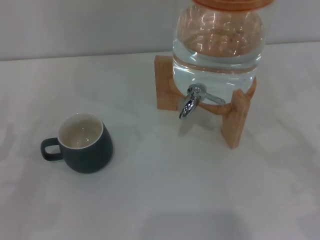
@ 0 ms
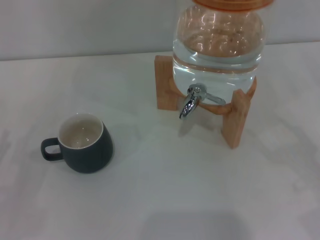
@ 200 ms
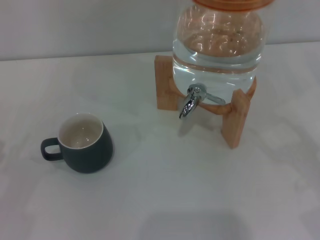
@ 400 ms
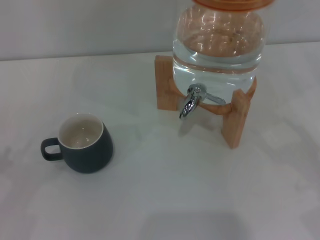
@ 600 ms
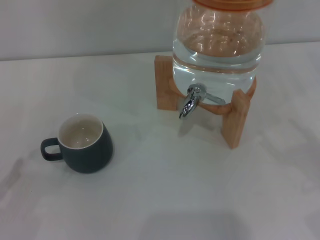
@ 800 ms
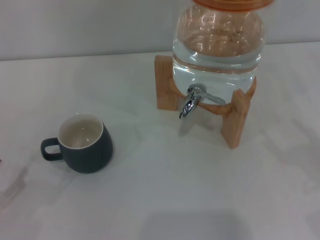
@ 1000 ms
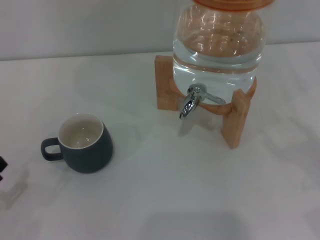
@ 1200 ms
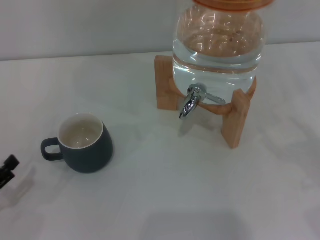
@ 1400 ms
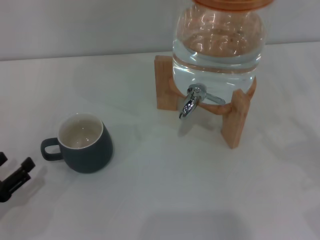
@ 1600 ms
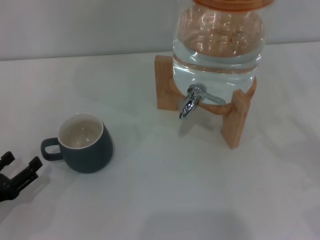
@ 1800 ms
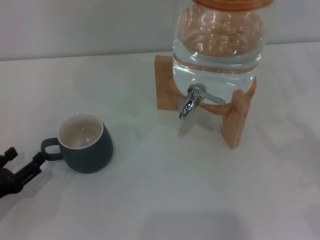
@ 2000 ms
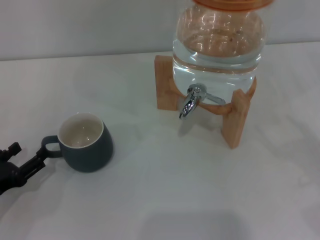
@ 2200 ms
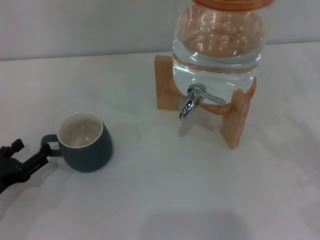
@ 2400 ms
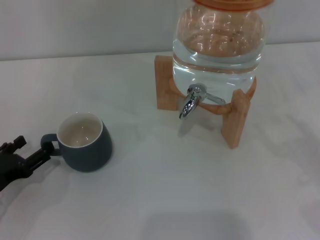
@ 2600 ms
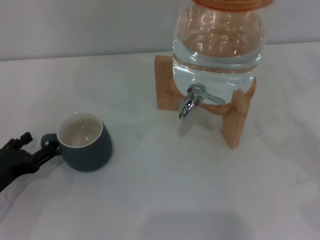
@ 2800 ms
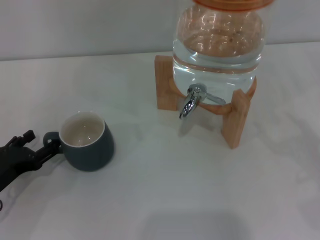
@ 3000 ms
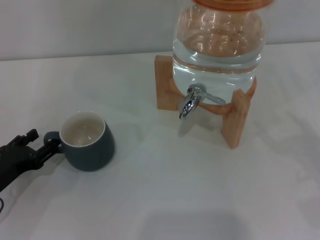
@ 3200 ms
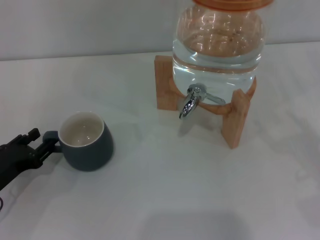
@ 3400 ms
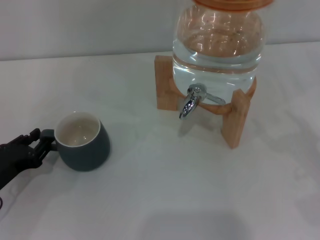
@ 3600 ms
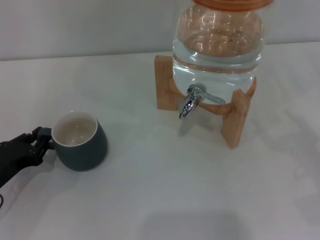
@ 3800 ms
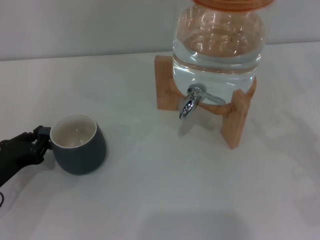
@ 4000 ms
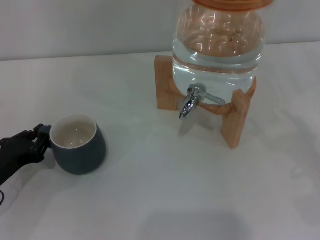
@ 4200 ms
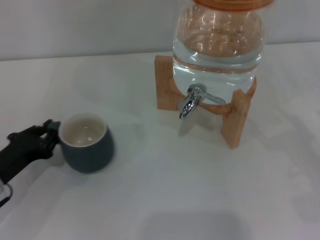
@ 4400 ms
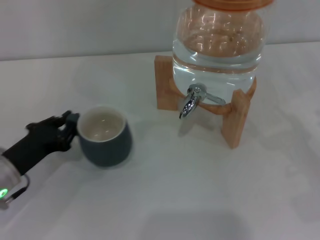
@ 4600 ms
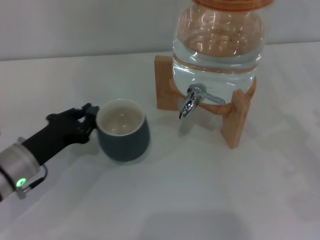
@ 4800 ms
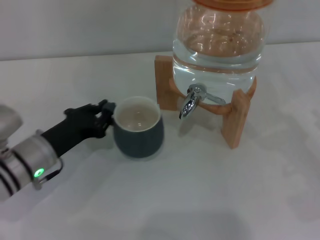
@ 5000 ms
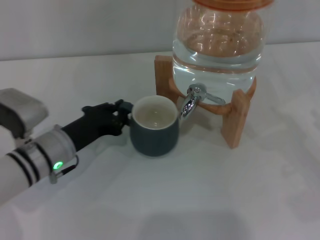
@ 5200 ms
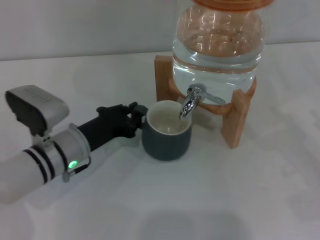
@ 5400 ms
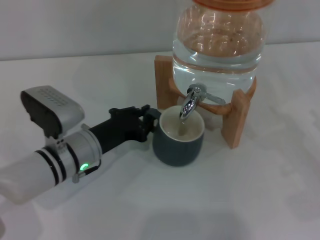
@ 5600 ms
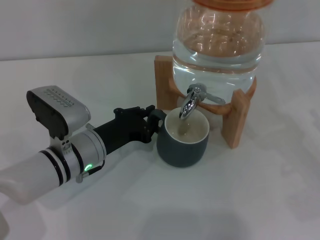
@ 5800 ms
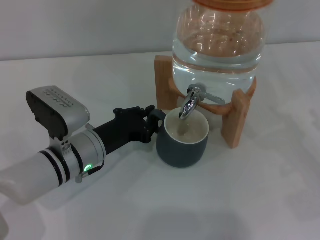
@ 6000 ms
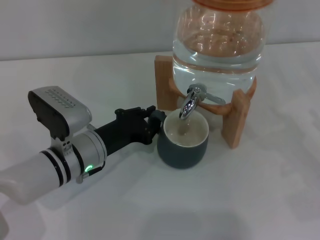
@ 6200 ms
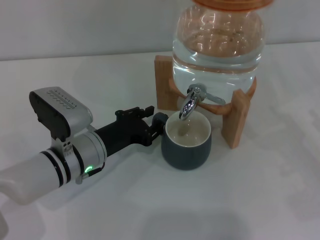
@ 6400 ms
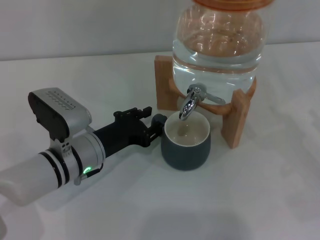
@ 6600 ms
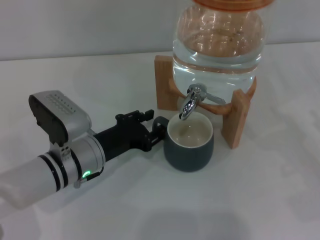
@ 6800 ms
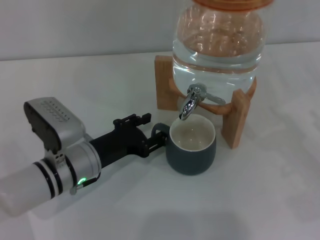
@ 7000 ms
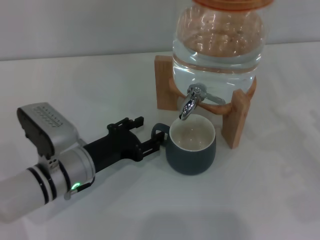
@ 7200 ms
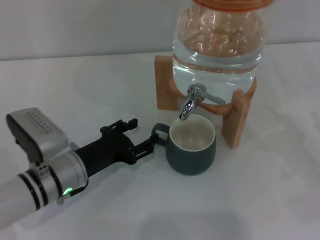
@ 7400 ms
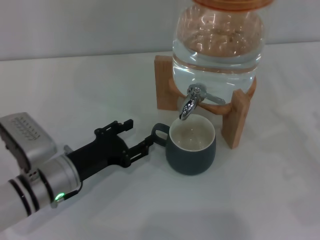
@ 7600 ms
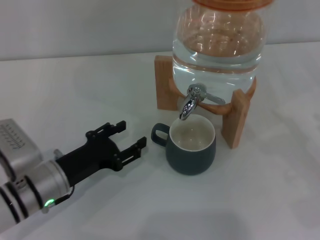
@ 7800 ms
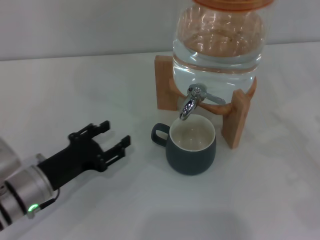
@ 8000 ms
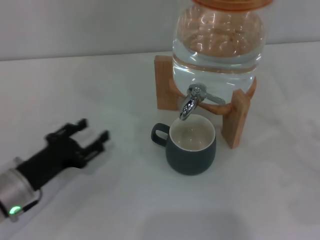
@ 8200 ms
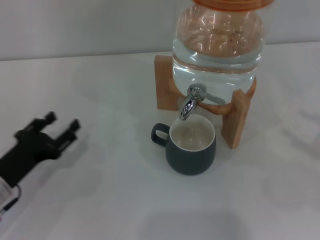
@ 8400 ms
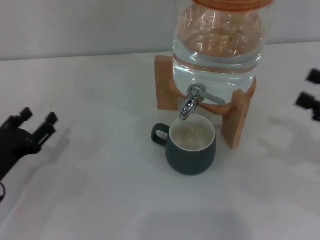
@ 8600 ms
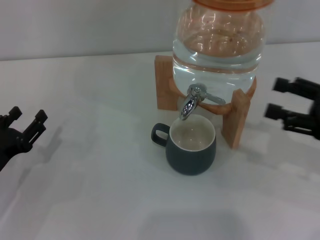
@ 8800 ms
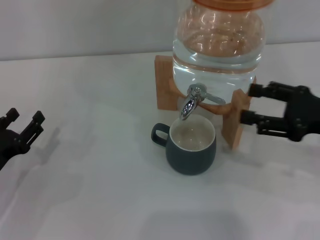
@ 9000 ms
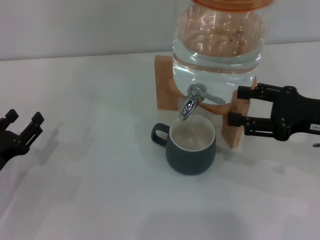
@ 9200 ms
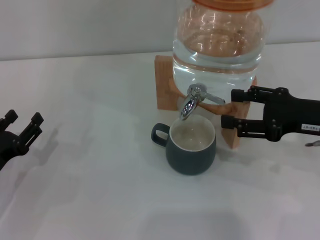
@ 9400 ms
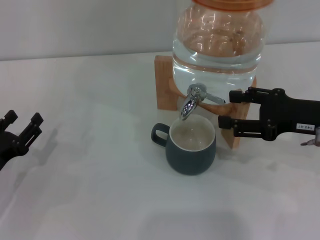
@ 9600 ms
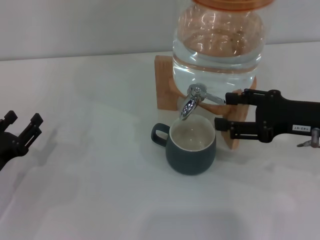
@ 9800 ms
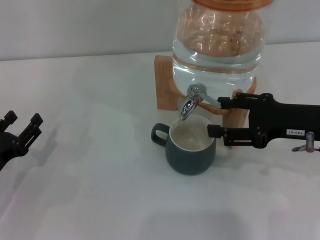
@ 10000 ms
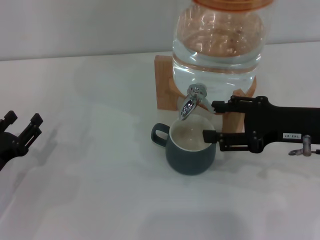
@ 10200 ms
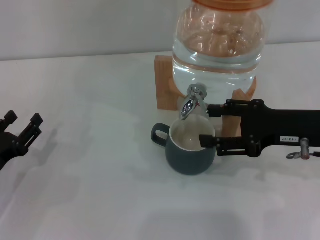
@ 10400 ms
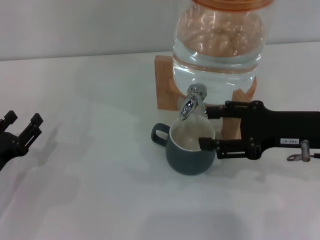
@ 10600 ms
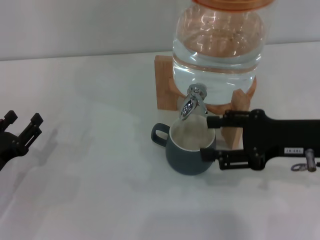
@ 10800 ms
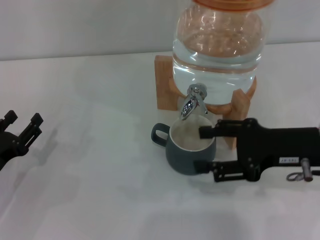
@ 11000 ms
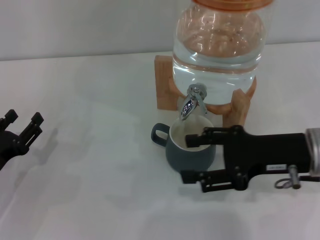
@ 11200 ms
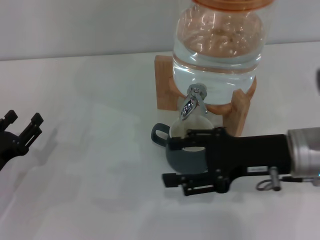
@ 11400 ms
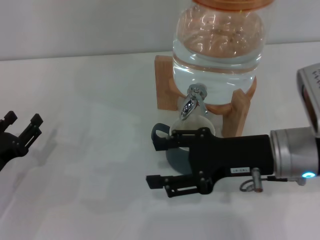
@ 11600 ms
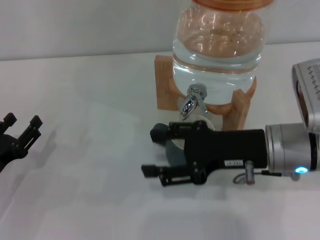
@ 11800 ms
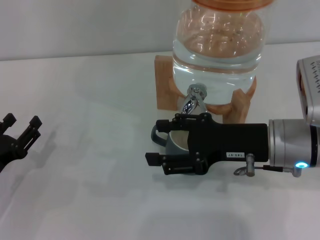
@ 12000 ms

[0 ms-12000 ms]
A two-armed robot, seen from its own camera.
Task of the whole recording: the left gripper pick up the black cup and place it horizontally under the faucet, the right gripper turn on the faucet to fill the cup, and then turn off the faucet.
Step, 0 ms to 7200 ms: Move the cup beneath the water dispenser nozzle with the left gripper.
Step, 7400 ms to 10800 ms: Open the dispenser valve and fill the cup with water with the right gripper.
1600 ms to 3000 ms: The left gripper heads forward, covering approximately 5 cm.
3000 ms to 4400 ms: The left gripper closes up.
4400 ms to 6000 ms: The left gripper heads to the right, covering about 15 cm.
6000 ms to 7600 ms: The left gripper ends up approximately 5 cm from where it was, and opens up.
7600 ms to 9000 ms: The left gripper shifts some 10 cm to the left, while the right gripper goes roughly 10 cm to the left, upward and forward.
9000 ms to 10400 ms: The right gripper travels to the left by about 5 cm.
10400 ms to 12000 ms: The right gripper goes approximately 5 cm to the left.

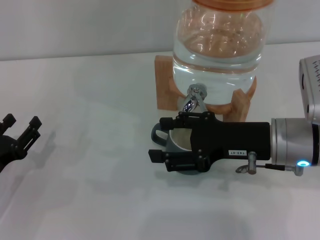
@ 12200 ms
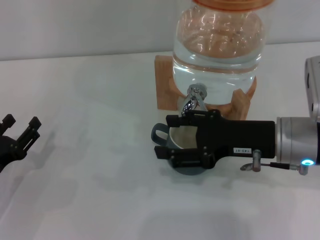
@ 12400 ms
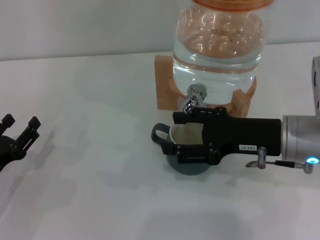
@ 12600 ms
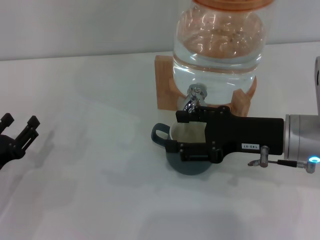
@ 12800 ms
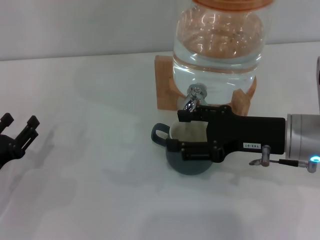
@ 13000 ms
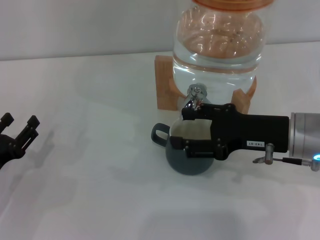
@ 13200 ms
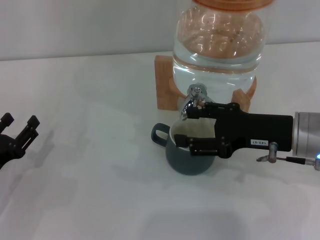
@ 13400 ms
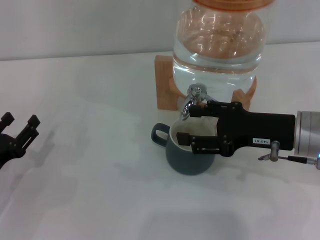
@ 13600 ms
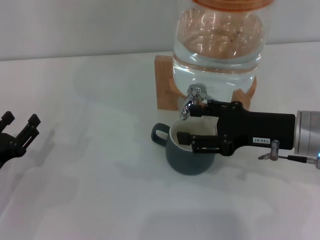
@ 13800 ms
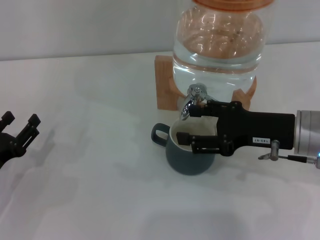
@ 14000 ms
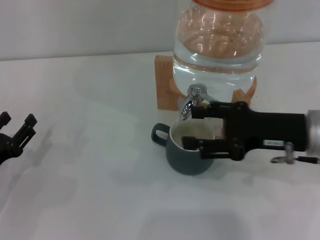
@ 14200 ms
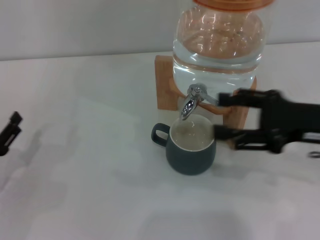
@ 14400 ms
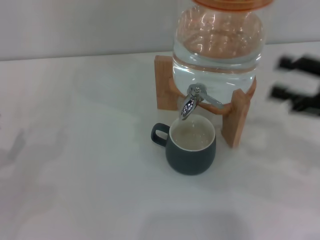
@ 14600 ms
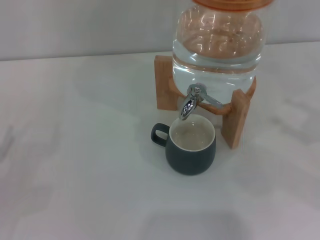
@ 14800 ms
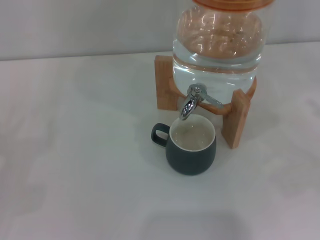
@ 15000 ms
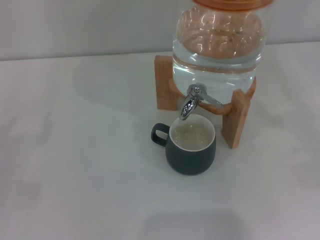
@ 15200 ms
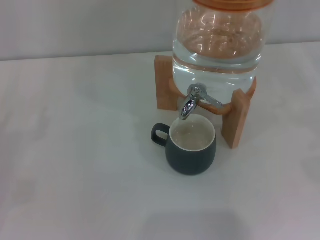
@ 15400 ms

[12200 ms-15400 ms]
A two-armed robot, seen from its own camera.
Task of the whole recording: the left gripper pick up the black cup and place it horizontally under the faucet, the right gripper turn on the faucet to fill the cup, and then turn off the faucet.
Step, 12200 ms to 14200 ms: Close the dispenser valve with the right gripper.
12200 ms to 13800 ms: The grippers move only a little.
13800 ms to 15400 ms: The right gripper heads to the right, covering approximately 25 cm. The left gripper heads to the left, covering roughly 10 cm.
